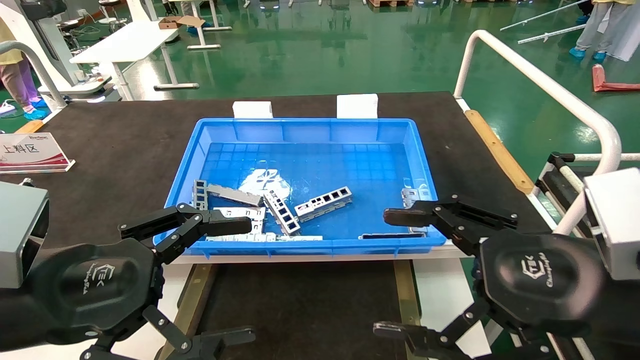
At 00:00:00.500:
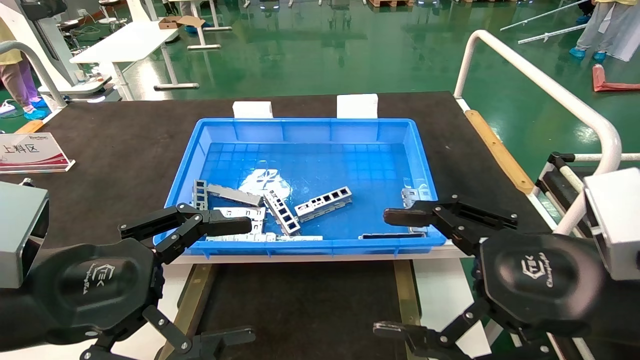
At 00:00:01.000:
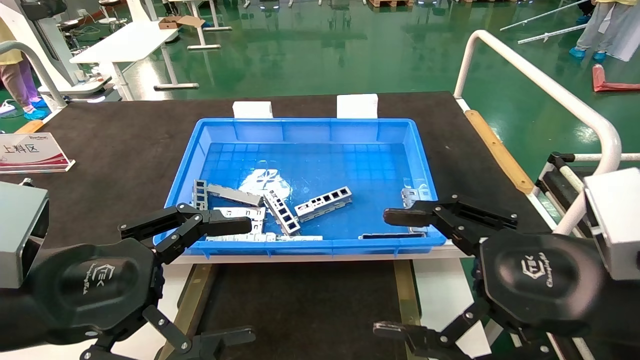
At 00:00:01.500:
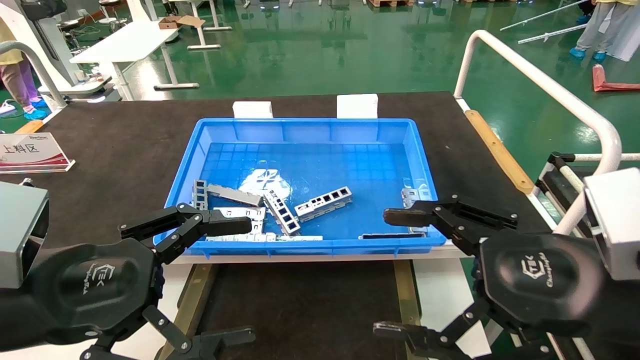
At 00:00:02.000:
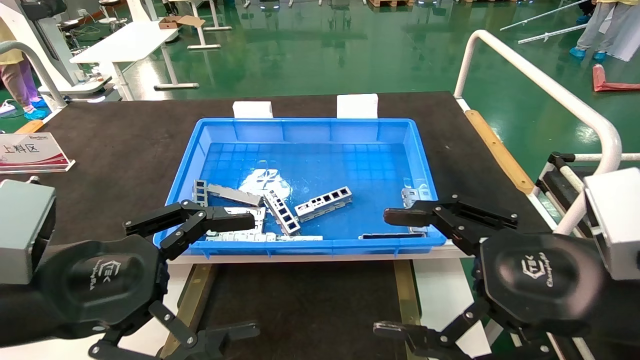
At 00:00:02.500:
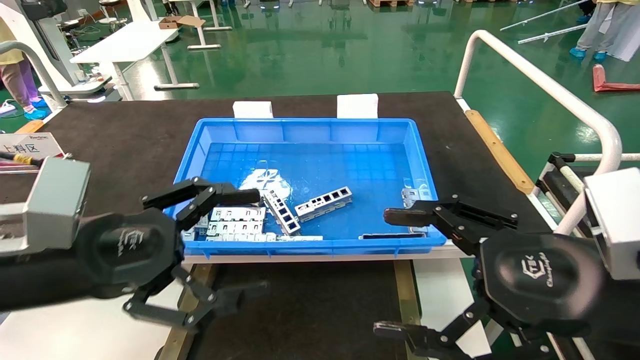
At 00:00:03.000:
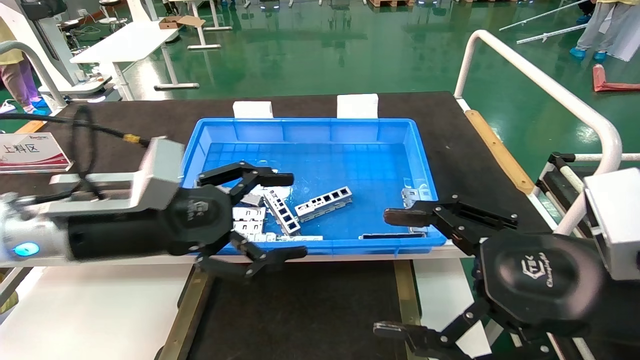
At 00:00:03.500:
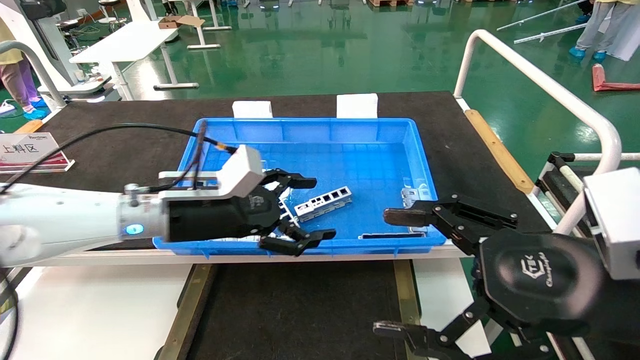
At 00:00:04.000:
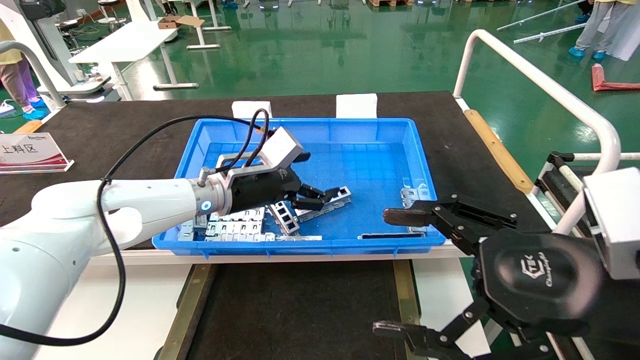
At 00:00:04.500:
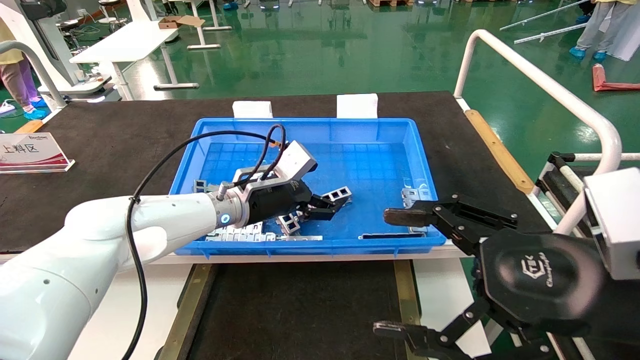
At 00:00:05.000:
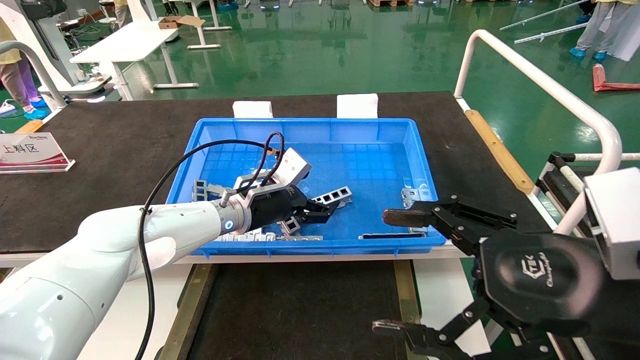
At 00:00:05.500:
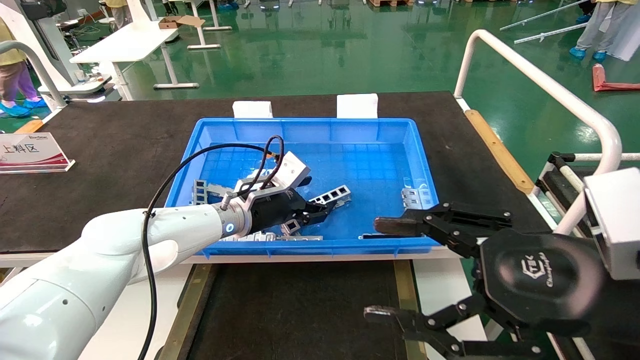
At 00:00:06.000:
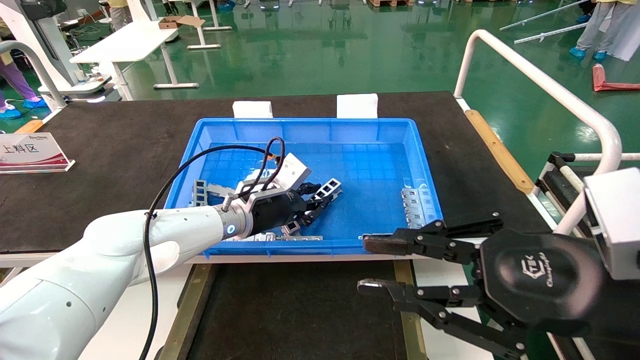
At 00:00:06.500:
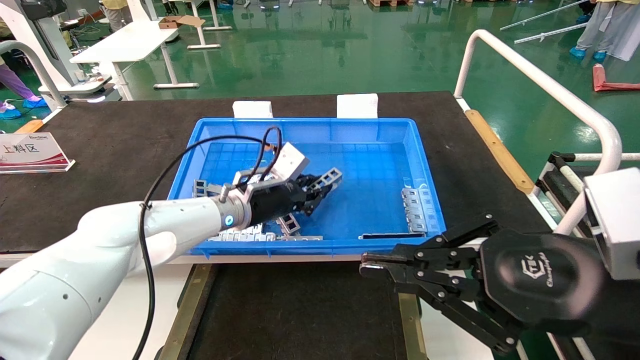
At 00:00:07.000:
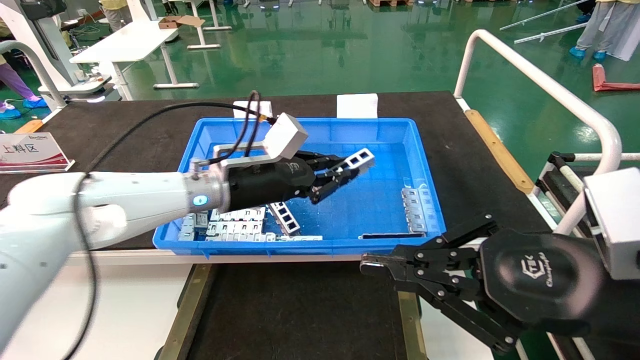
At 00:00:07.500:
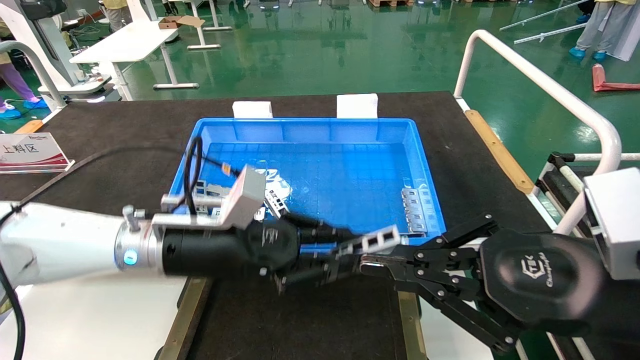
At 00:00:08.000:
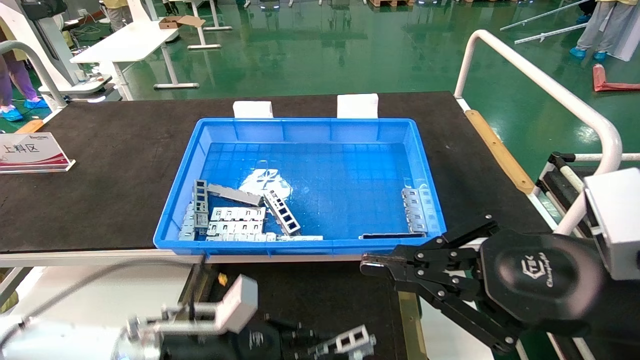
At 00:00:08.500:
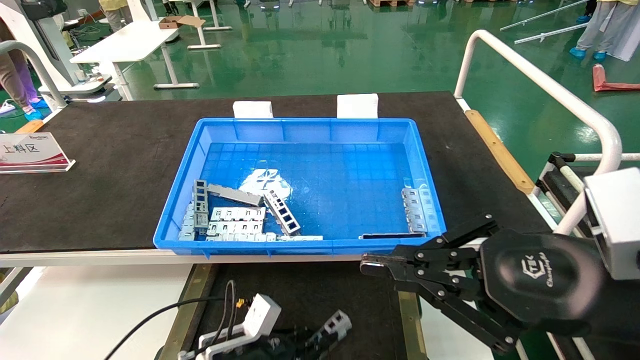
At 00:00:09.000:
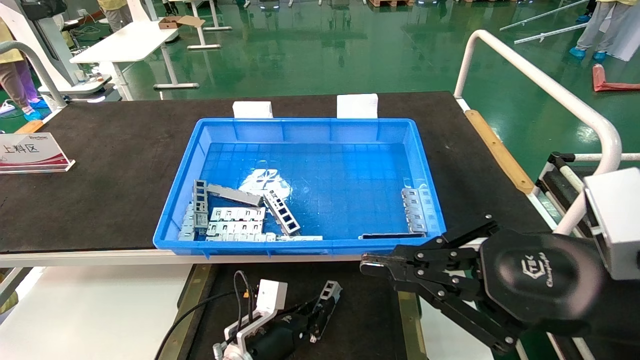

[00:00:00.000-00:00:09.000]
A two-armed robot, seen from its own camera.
Task of the whole recording: Grasp the part with one hand and place it on the black container.
Step, 00:00:02.500 to 00:00:06.500: Pick up the front USB bracket from the feeding area.
00:00:00.000 to 00:00:02.000: Both grippers stay about where they are.
00:00:02.000 to 00:00:04.500: The left gripper is displaced forward and to the right by roughly 30 cm.
00:00:04.500 to 00:00:07.000: The right gripper closes its fingers. Meanwhile the left gripper heads backward, covering some 5 cm, and closes its fingers.
00:00:07.000 to 00:00:09.000: The left gripper shifts approximately 30 cm downward.

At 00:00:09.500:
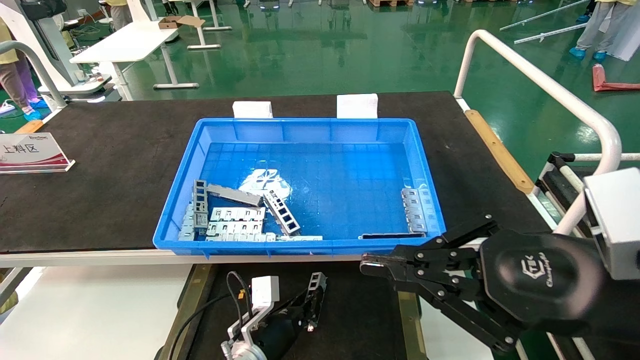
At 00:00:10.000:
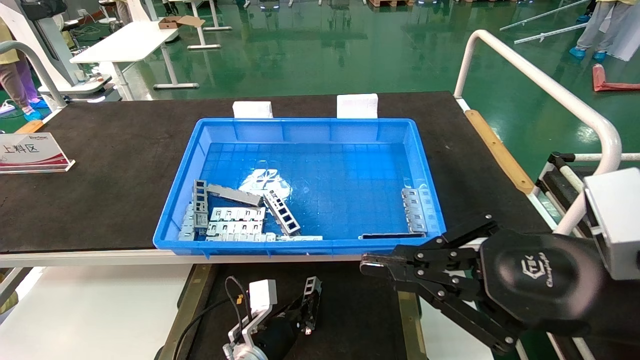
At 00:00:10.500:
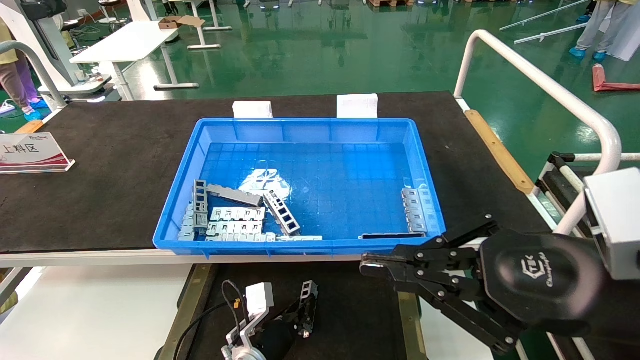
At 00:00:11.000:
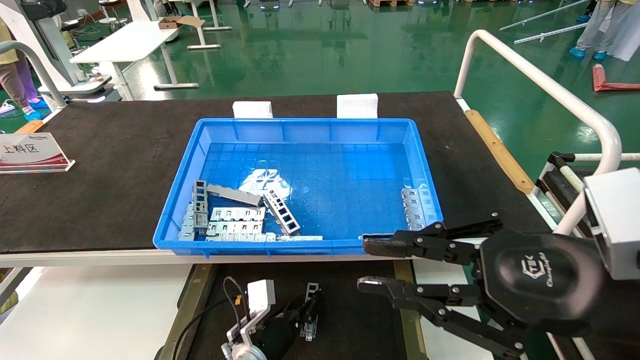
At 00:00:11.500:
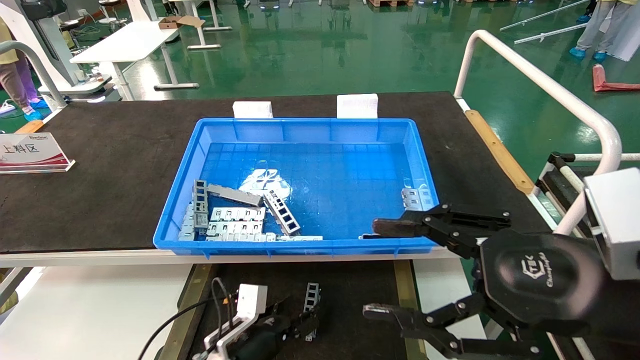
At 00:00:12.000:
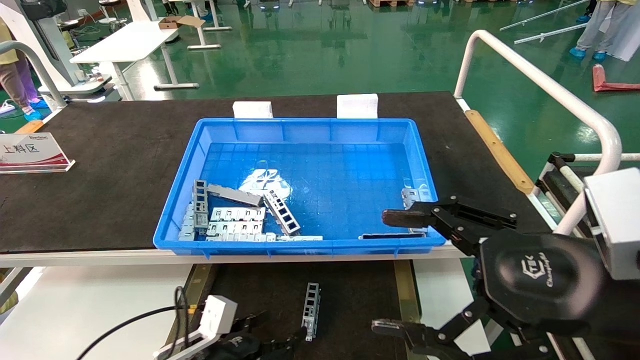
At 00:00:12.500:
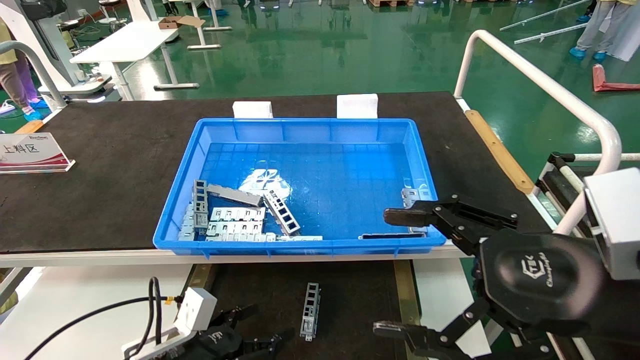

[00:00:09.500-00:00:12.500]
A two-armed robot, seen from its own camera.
Task of the whole recording: Grasp the part with one hand and place it on the black container.
00:00:09.500 to 00:00:11.000: The grippers make only small movements.
00:00:11.000 to 00:00:12.500: The right gripper opens. Meanwhile the left gripper travels to the left, backward and upward by some 15 cm, and opens up.
